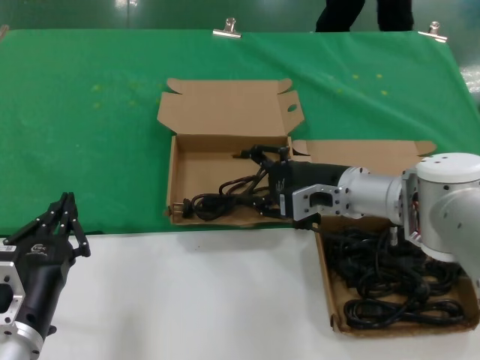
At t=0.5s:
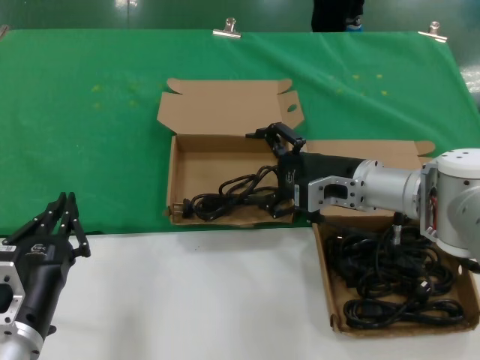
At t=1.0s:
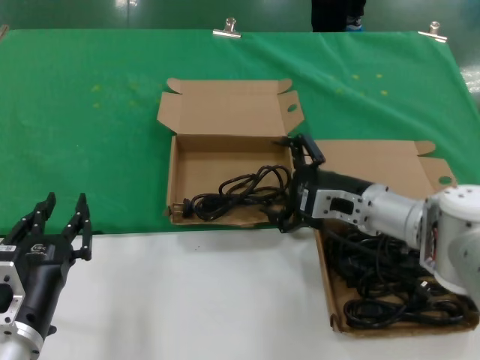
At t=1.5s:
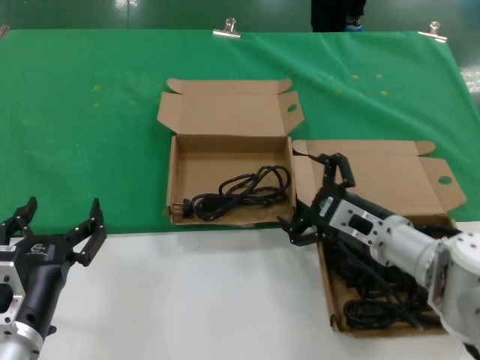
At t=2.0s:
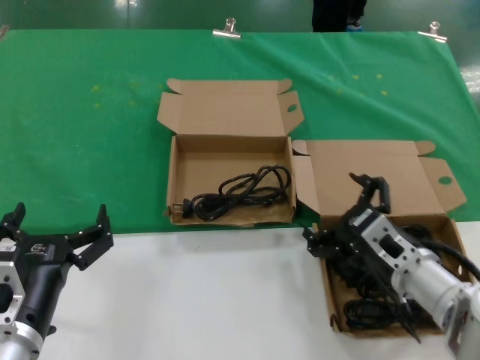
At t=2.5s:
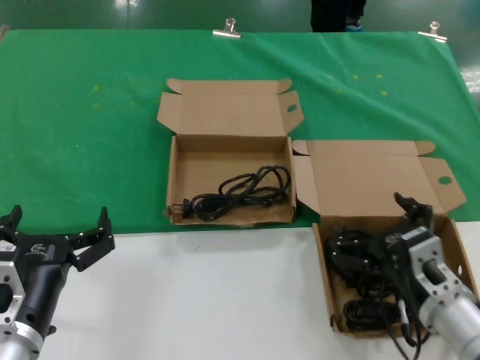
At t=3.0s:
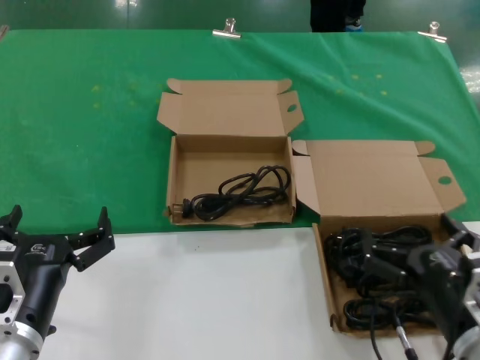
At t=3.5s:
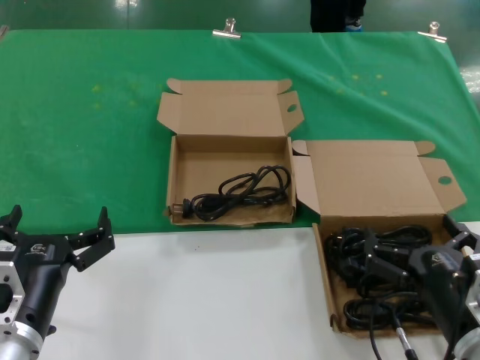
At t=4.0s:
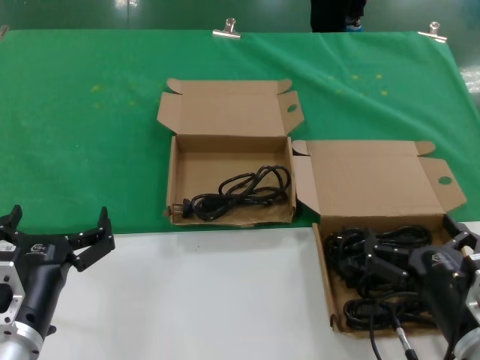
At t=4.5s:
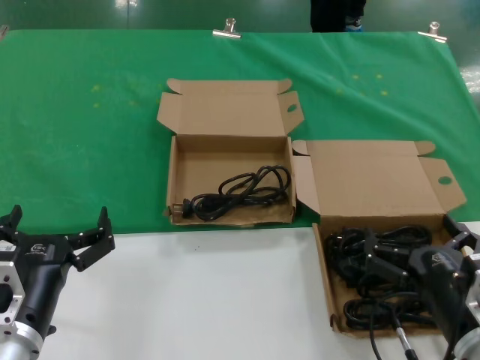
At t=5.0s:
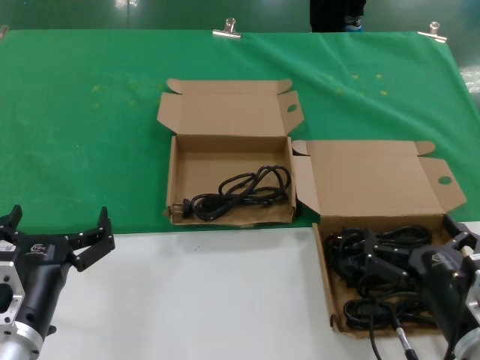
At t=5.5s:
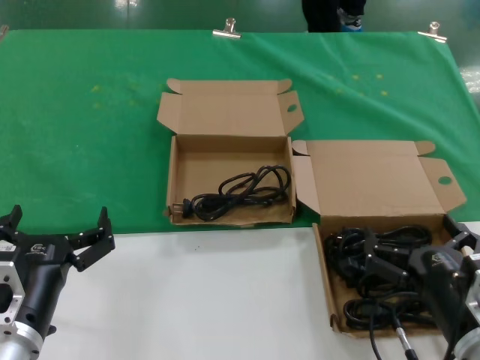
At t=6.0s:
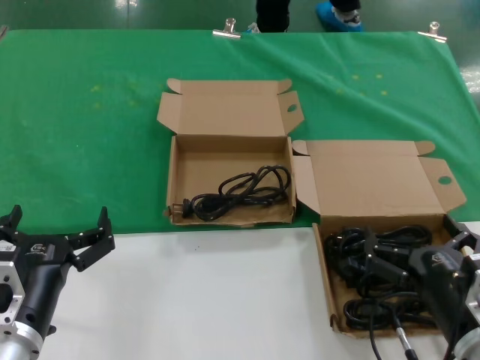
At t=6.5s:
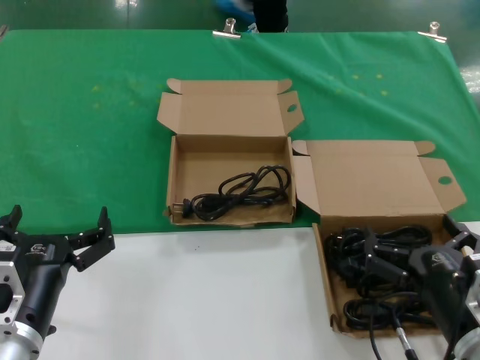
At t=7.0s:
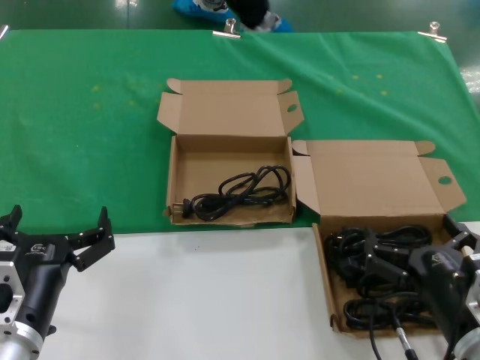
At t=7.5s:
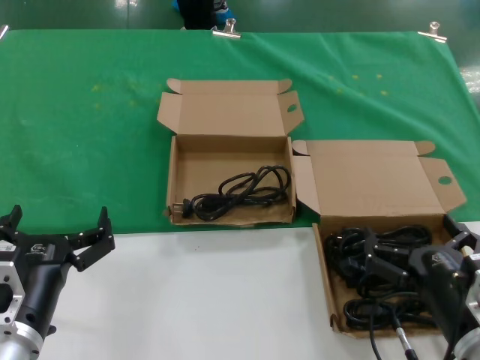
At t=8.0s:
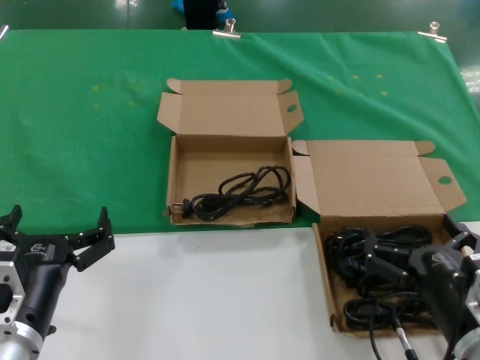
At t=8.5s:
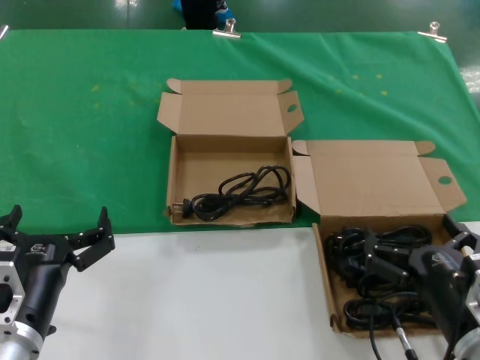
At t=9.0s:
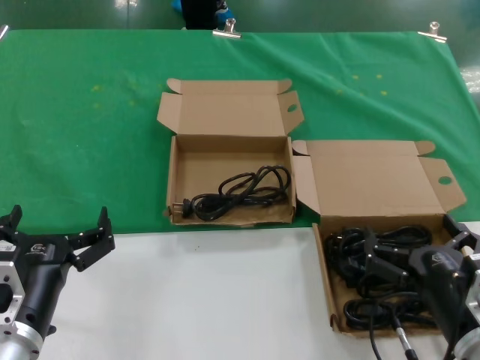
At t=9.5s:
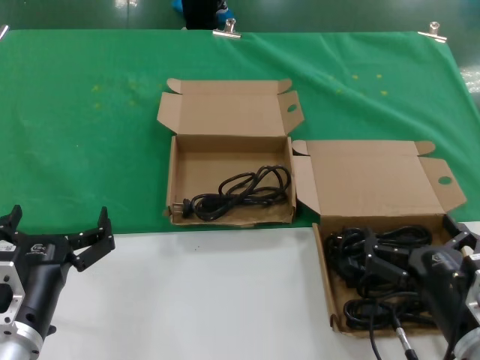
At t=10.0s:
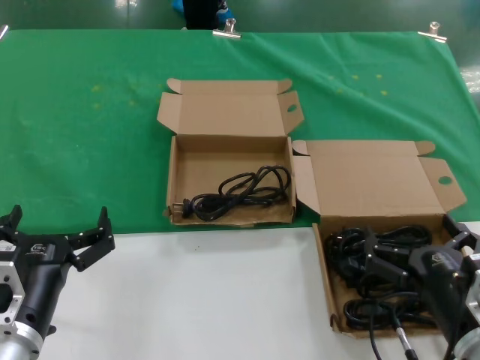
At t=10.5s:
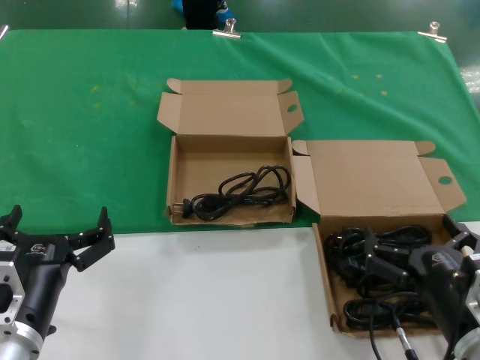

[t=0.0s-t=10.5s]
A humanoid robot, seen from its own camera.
Task of the whole recording: take the parts from the box containing them and put them into an empty box.
t=0.0s to t=2.0s: The right hand shifts about 15 cm backward, downward and to the right.
t=2.0s to t=4.0s: The right hand goes approximately 15 cm backward.
t=4.0s to t=10.5s: Neither hand changes place.

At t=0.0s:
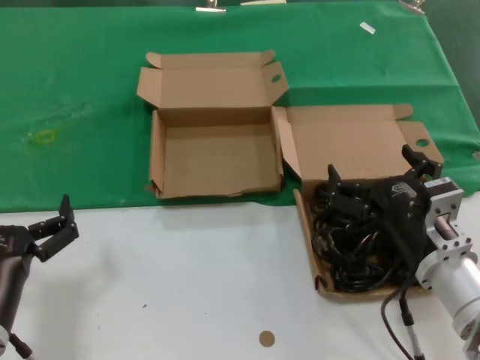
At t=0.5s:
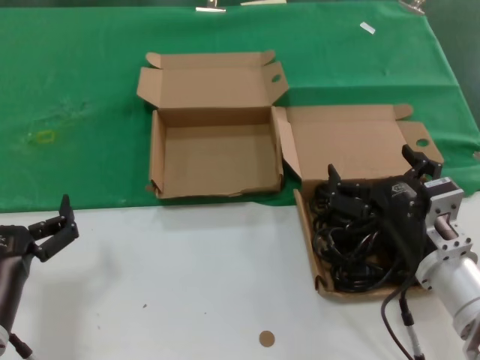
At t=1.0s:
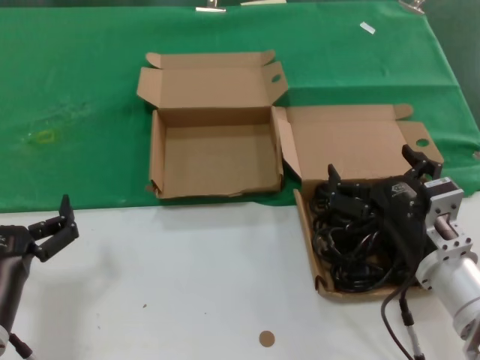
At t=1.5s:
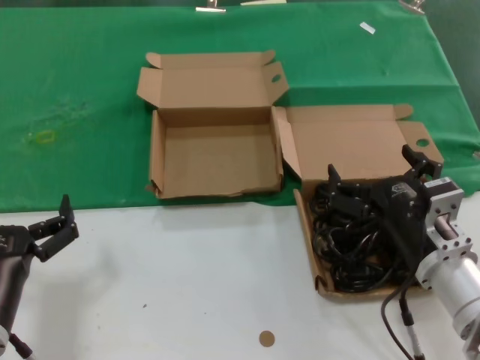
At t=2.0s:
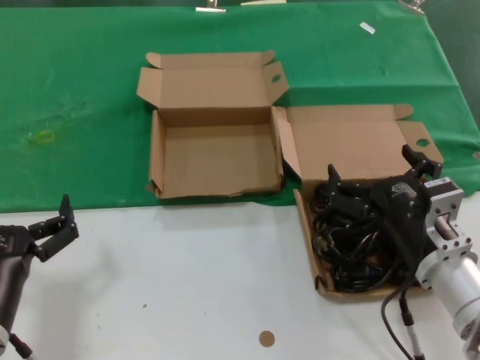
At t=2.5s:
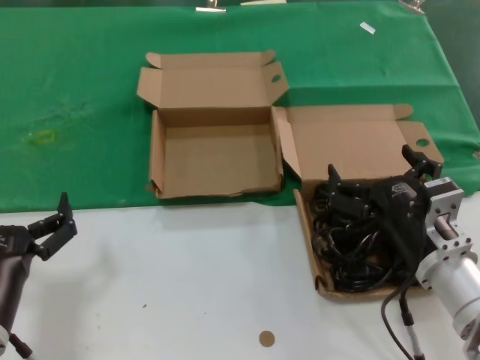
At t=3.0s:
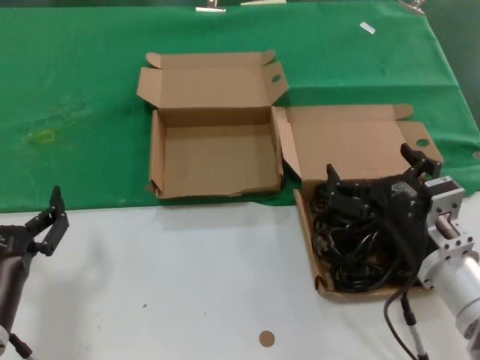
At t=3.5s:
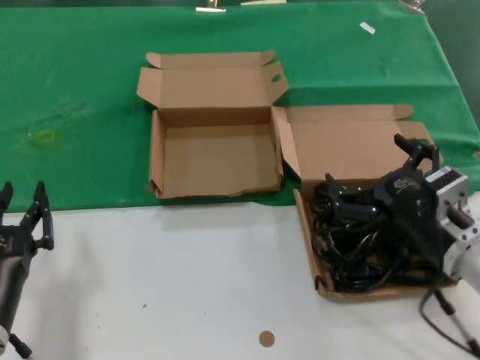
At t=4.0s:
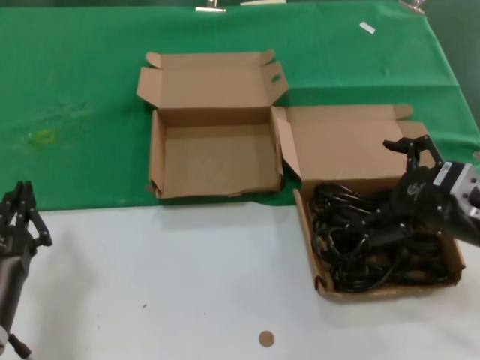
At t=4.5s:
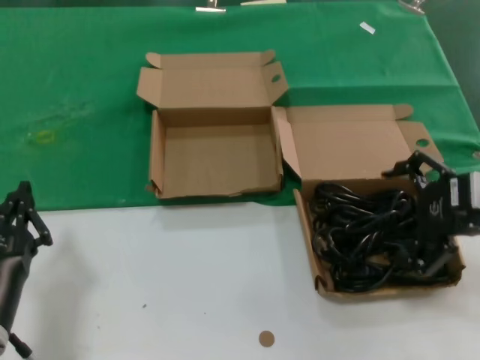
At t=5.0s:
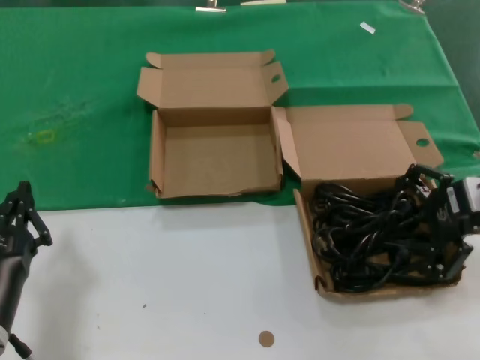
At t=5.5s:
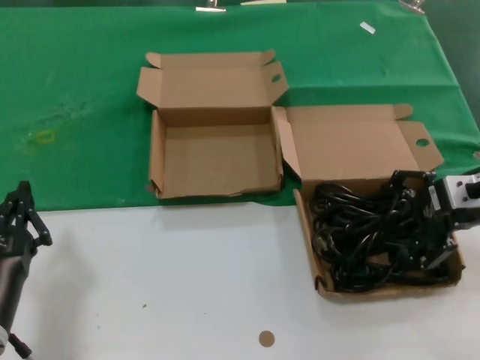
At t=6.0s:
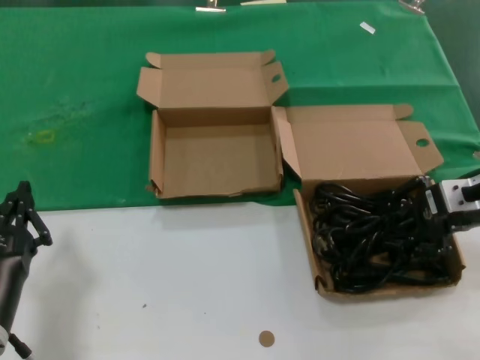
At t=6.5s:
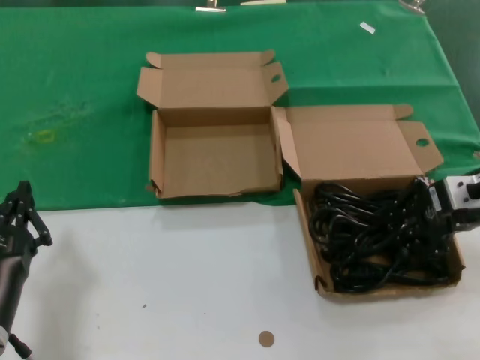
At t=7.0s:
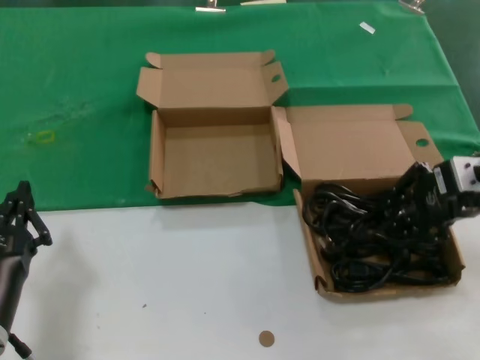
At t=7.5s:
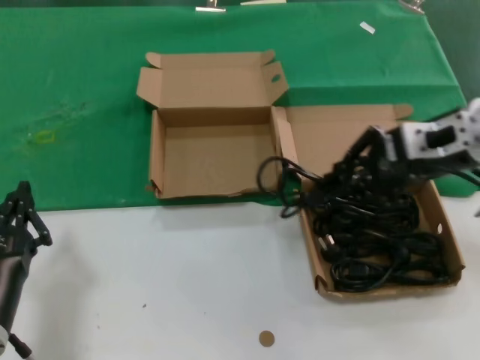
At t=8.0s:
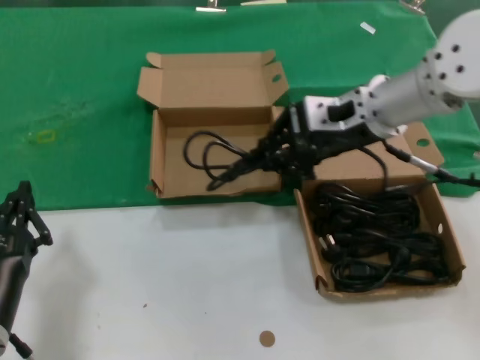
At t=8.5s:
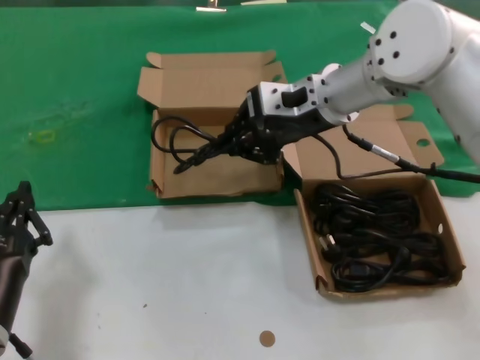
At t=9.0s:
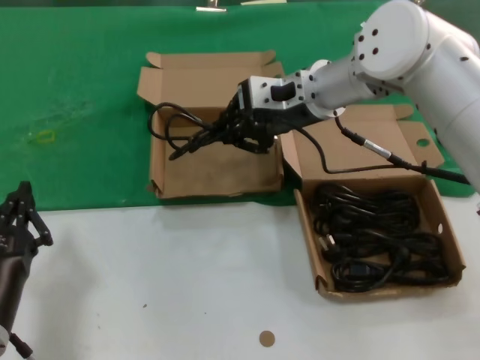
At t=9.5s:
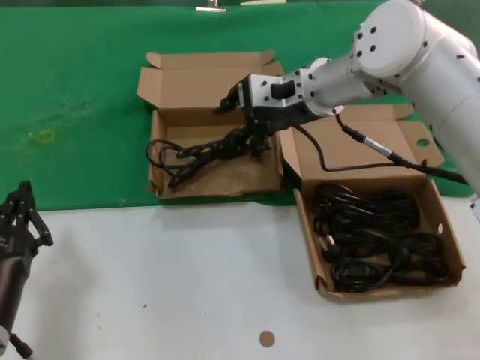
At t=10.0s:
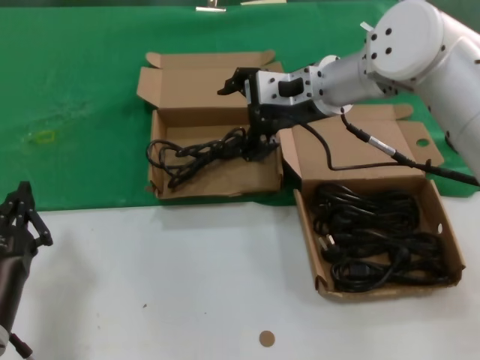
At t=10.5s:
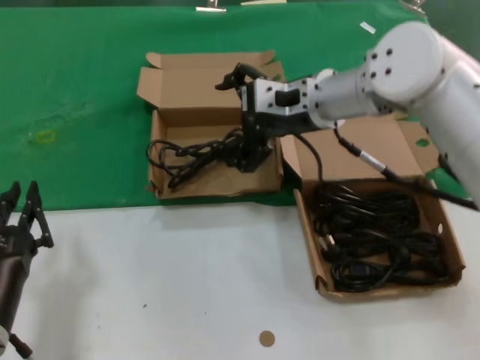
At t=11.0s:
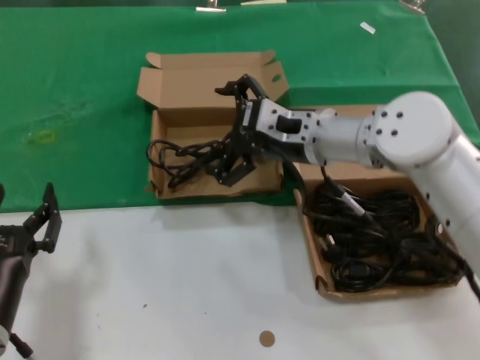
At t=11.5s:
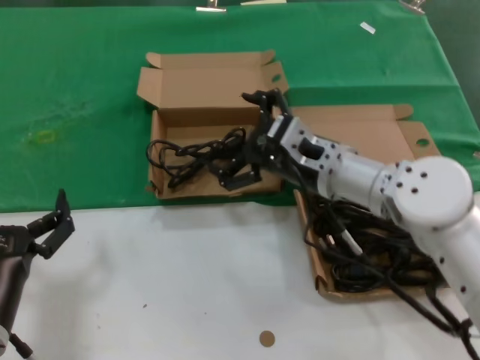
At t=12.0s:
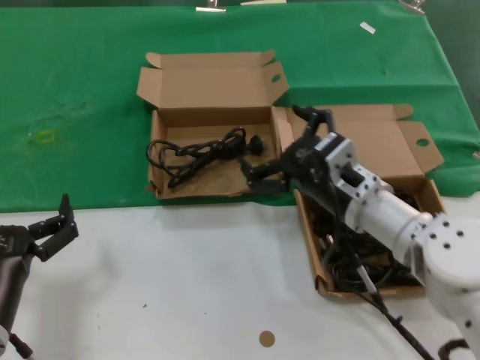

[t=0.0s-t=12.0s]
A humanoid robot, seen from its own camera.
Task of the whole recording: take the parts from the box containing them and put them into an empty box.
Step, t=0.0s to t=6.0s: Grasp the data cable.
Step, t=6.5s to t=9.0s: Place the data cable in the another box.
t=0.0s to t=2.0s: Both hands stay about where they are.
t=2.0s to t=4.0s: The right hand moves to the right and upward, approximately 10 cm.
t=4.0s to t=6.0s: The right hand shifts about 10 cm forward.
t=6.0s to t=8.0s: The right hand goes roughly 20 cm to the left and upward.
t=8.0s to t=10.0s: The right hand travels forward and to the left by some 10 cm.
t=10.0s to t=12.0s: The right hand heads downward and backward, covering approximately 20 cm.

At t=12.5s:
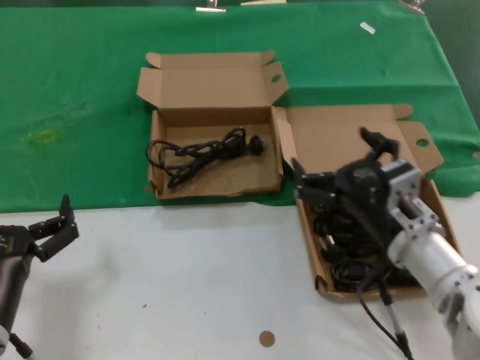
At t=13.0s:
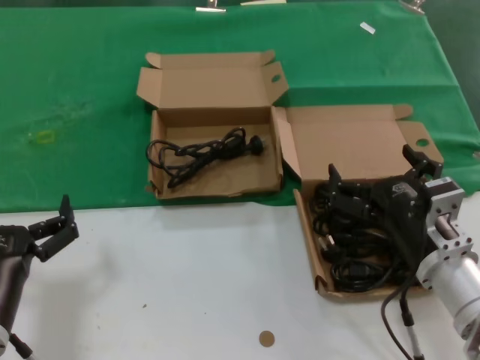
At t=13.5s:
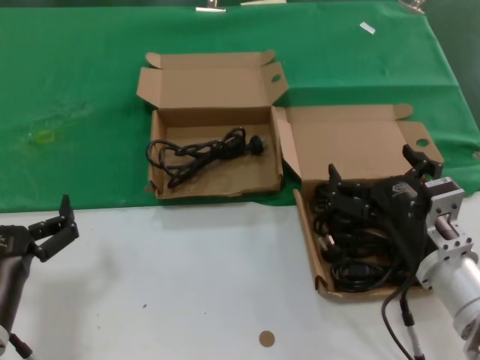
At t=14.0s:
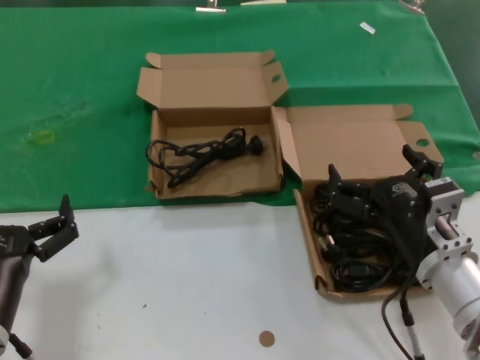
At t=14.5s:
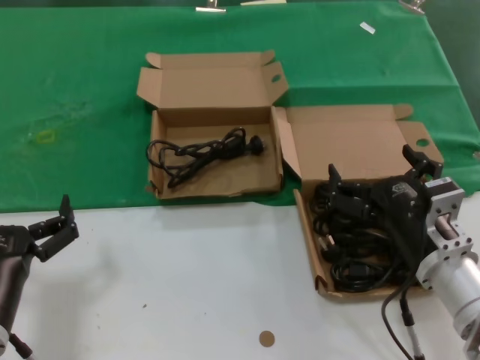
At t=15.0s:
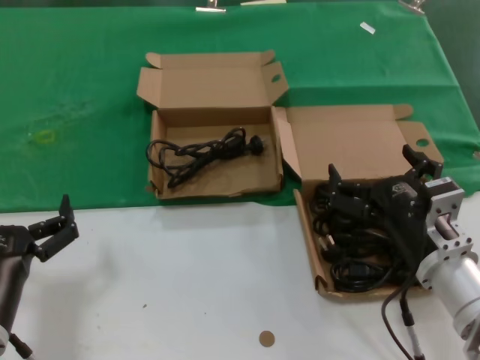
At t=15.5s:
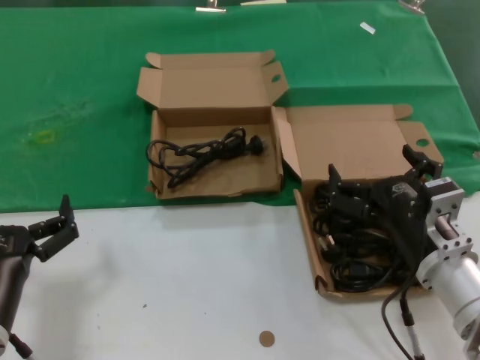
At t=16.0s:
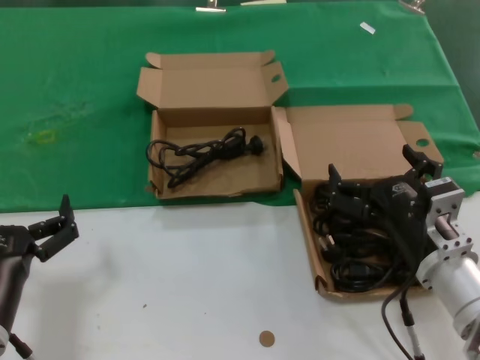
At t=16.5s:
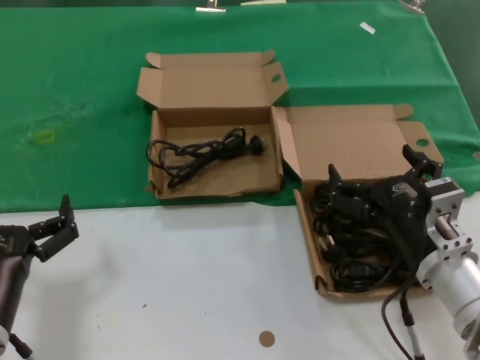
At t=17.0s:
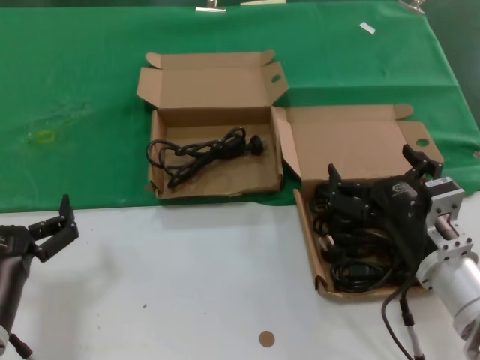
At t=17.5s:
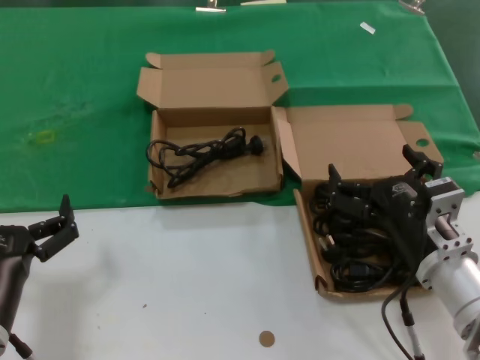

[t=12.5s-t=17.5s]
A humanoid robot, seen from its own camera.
Task of the whole recording: take the parts from the box containing them and put them into an empty box.
t=12.5s to t=15.0s: There are only small adjustments of the hands.
t=15.0s to t=17.5s: Both hands stay put.
